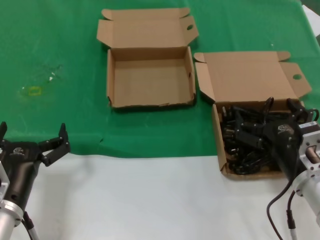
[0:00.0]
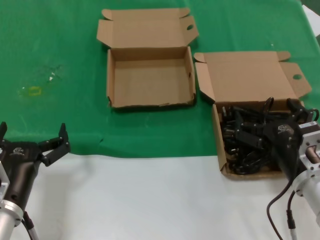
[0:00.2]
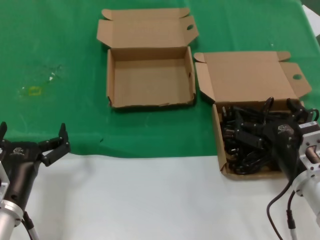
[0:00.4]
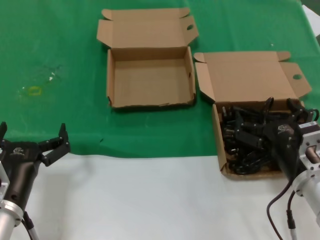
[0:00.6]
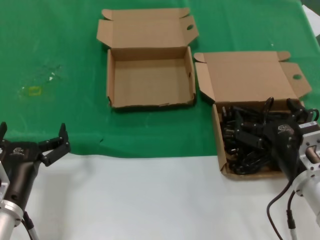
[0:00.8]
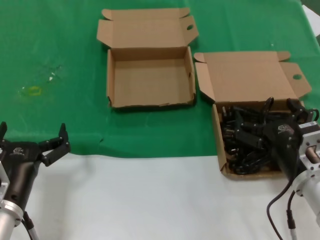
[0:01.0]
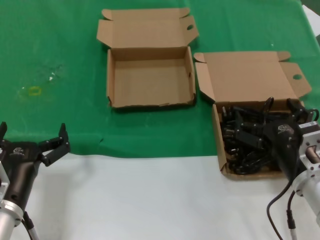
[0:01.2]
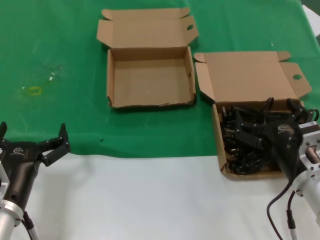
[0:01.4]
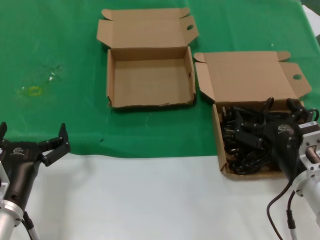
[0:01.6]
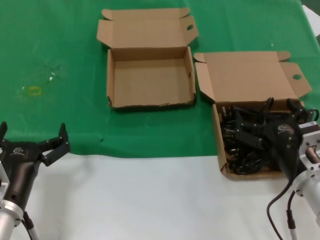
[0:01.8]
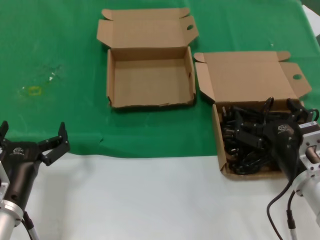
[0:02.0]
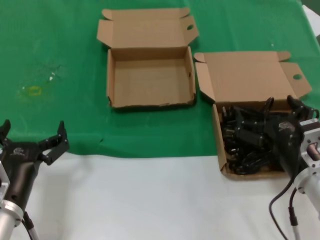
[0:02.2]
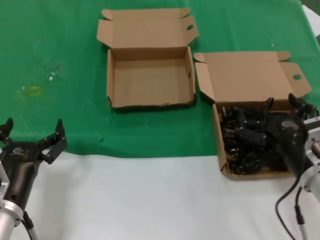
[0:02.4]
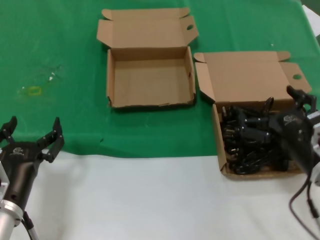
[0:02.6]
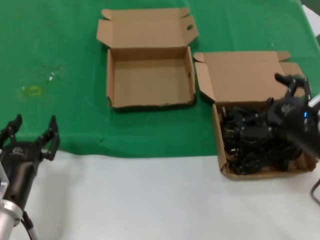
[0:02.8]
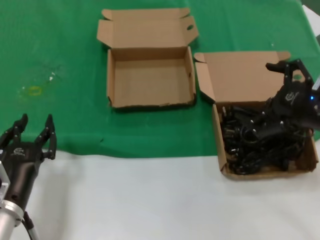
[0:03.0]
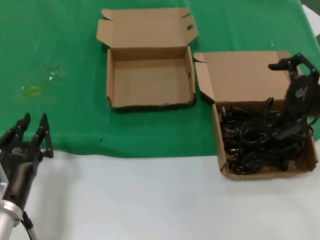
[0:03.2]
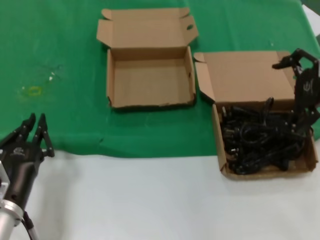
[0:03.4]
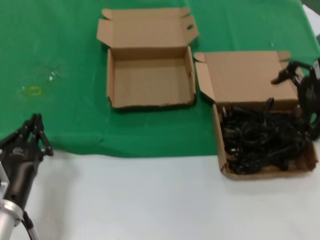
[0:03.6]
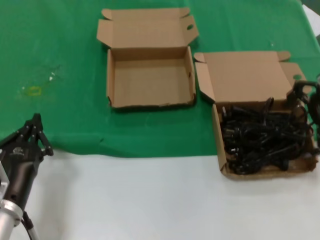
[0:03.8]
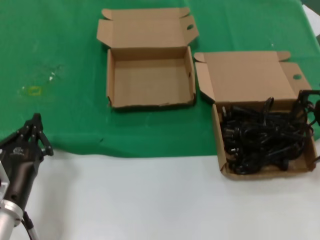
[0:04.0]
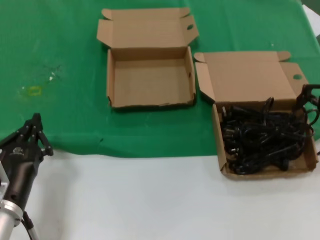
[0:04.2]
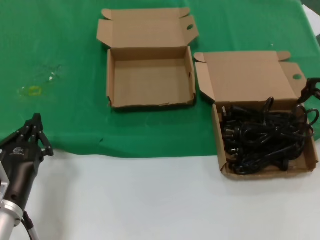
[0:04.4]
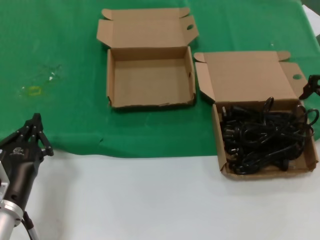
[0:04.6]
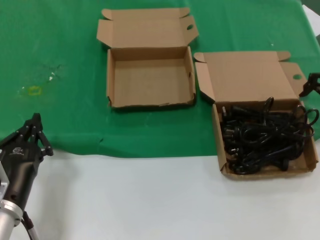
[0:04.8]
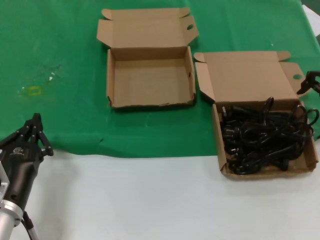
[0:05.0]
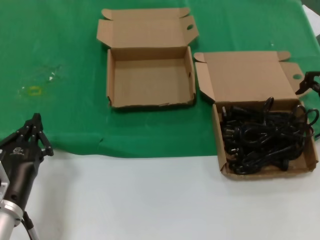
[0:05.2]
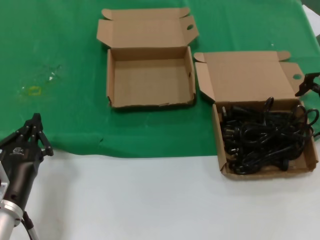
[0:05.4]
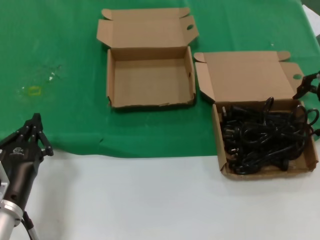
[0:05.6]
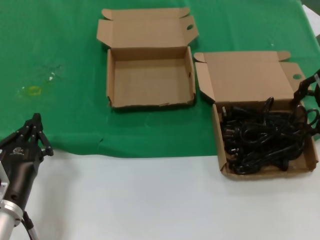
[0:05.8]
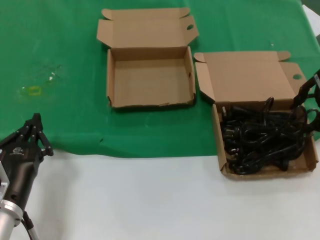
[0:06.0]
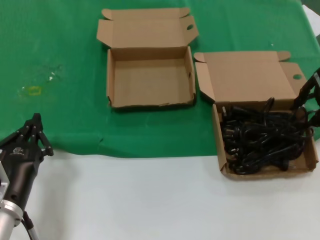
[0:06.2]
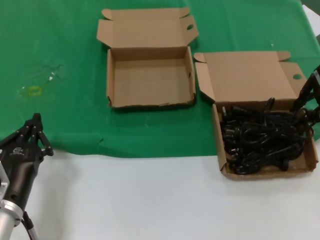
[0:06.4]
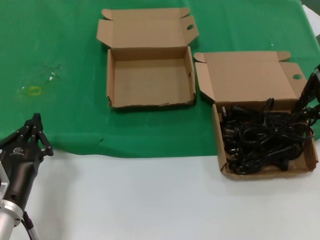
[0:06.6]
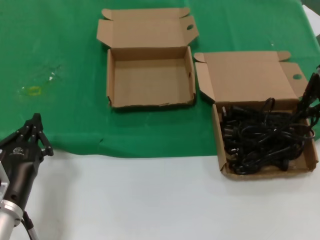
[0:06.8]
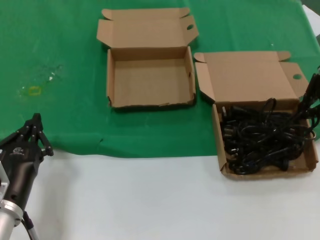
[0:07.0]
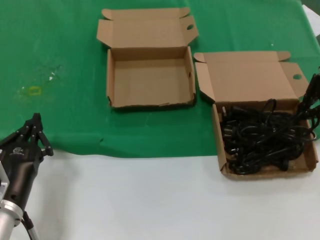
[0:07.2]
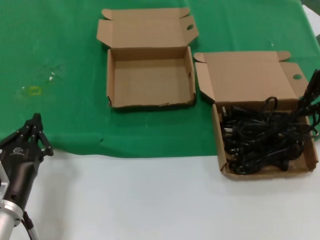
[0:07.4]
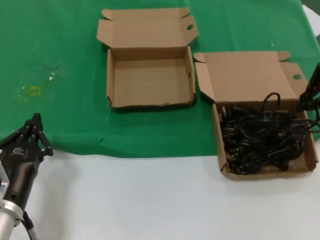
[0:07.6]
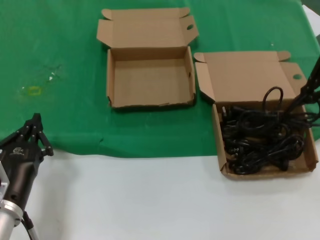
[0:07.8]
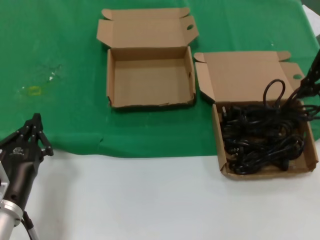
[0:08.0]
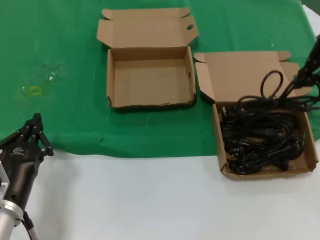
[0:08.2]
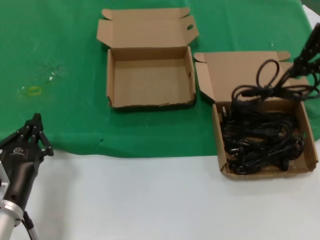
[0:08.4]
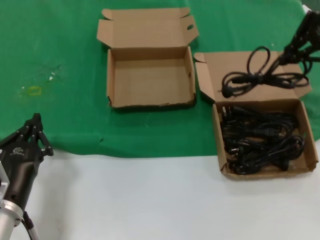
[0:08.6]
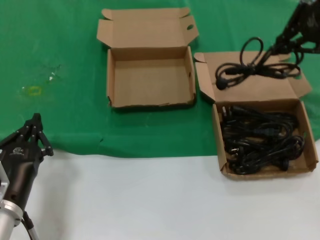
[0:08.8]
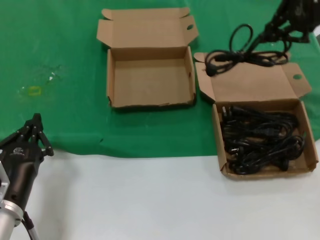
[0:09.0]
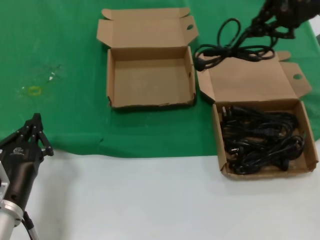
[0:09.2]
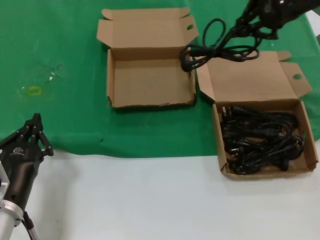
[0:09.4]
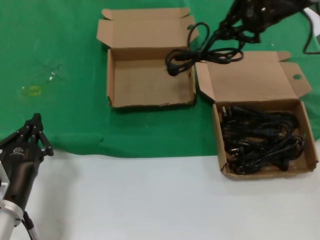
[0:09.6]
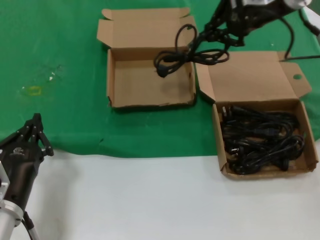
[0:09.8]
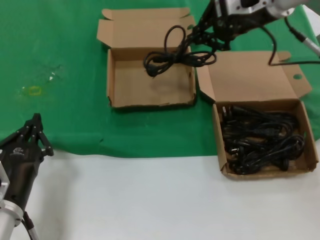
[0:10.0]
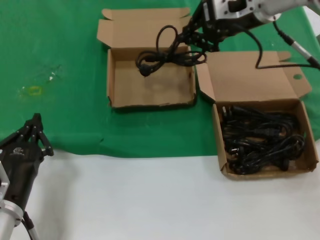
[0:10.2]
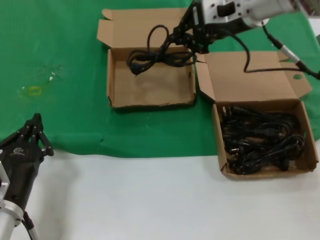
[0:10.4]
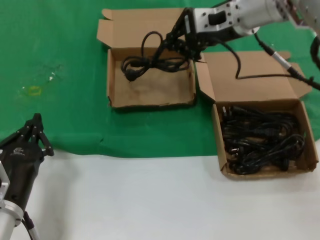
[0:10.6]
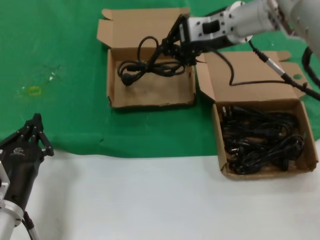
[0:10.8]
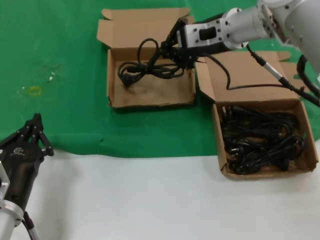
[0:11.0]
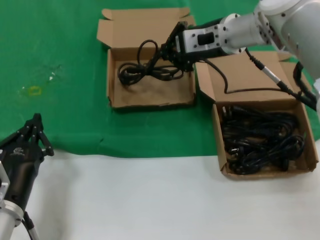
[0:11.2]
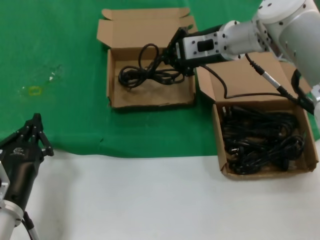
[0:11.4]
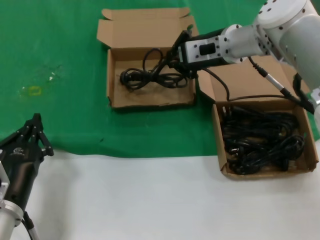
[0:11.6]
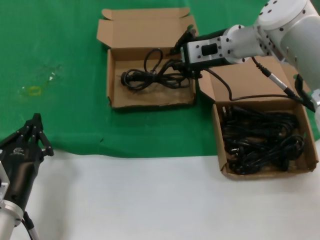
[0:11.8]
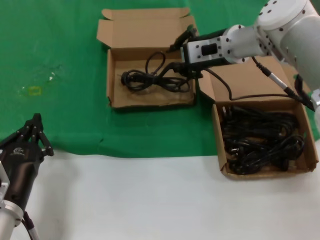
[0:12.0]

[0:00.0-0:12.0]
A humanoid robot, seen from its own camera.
Task of the whole recording: take the parts from the box containing them and put them into an empty box.
Step, 0:00.0 to 0:06.8: Grasp the data cable.
0:00.0 to 0:01.6: Neither hand changes place.
0:01.6 to 0:03.0: The right hand heads upward and to the right, covering some 15 cm.
0:03.0 to 0:04.4: The right hand goes some 20 cm forward, upward and to the right.
0:06.0 to 0:07.6: The hands move only a little.
0:07.6 to 0:09.0: The right hand moves upward and to the left, roughly 10 cm.
0:09.0 to 0:10.4: The right hand heads to the left and downward, covering approximately 15 cm.
0:10.4 to 0:12.0: The right hand goes approximately 10 cm downward.

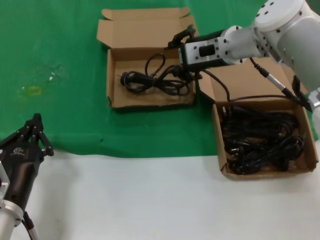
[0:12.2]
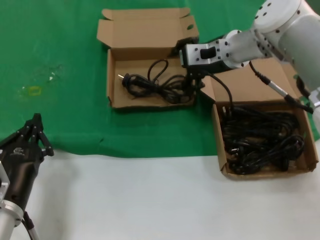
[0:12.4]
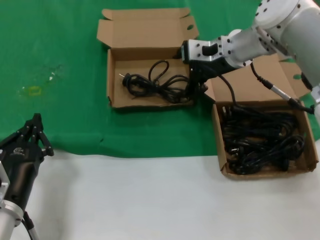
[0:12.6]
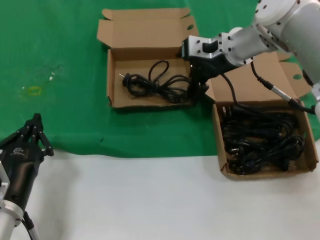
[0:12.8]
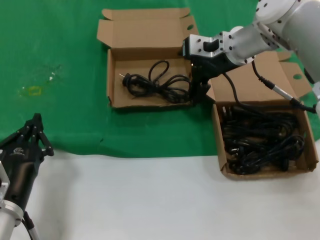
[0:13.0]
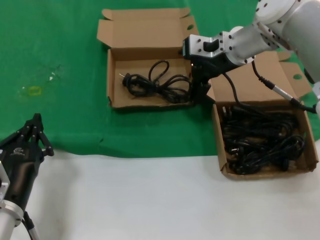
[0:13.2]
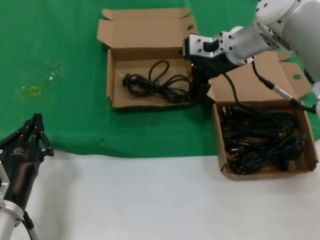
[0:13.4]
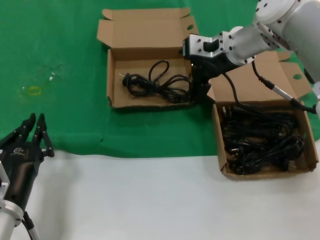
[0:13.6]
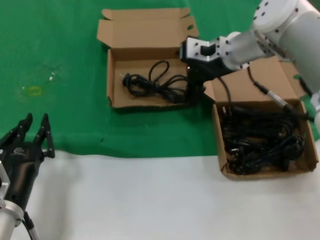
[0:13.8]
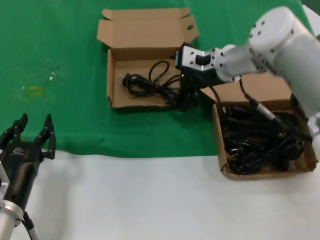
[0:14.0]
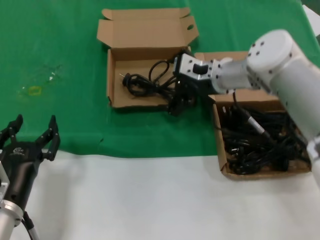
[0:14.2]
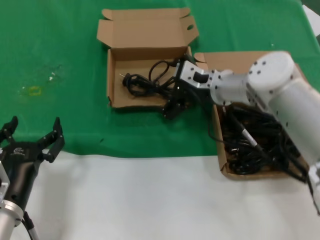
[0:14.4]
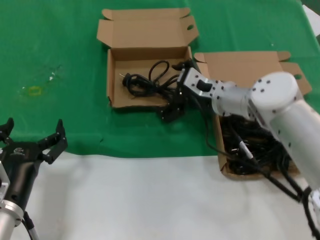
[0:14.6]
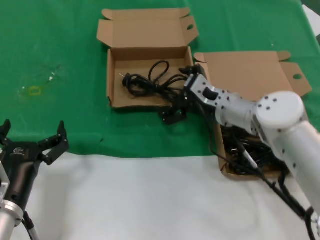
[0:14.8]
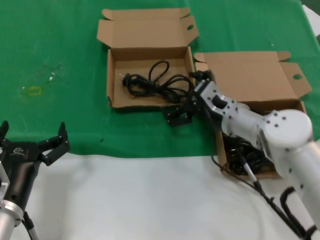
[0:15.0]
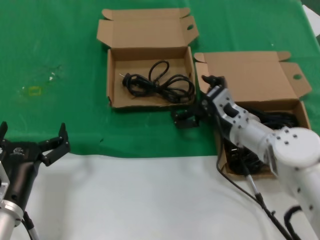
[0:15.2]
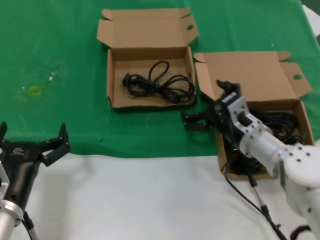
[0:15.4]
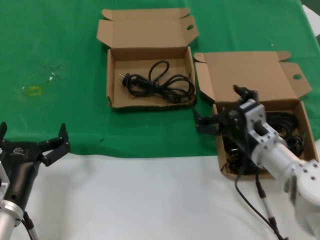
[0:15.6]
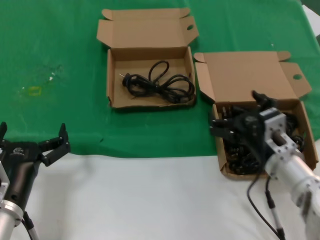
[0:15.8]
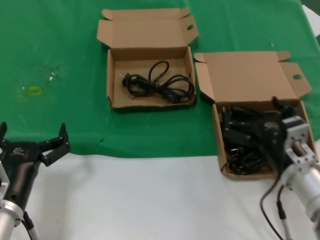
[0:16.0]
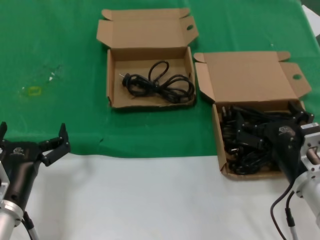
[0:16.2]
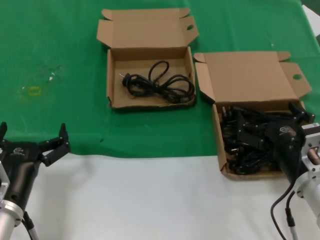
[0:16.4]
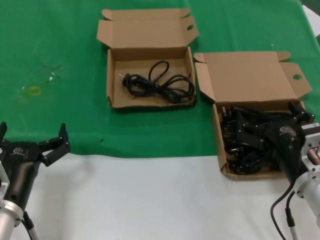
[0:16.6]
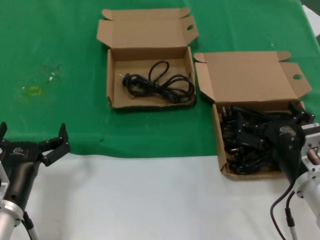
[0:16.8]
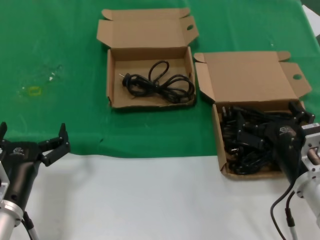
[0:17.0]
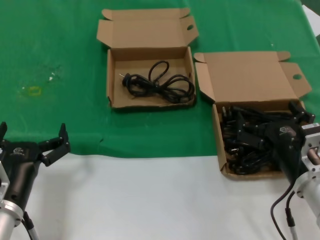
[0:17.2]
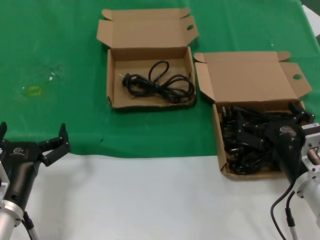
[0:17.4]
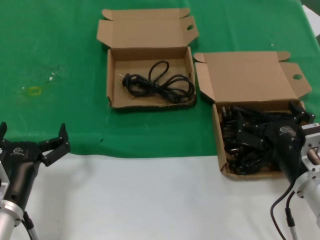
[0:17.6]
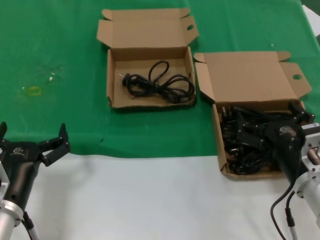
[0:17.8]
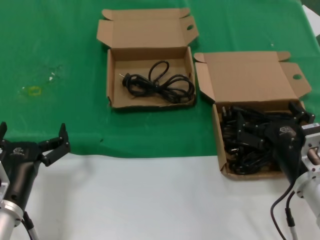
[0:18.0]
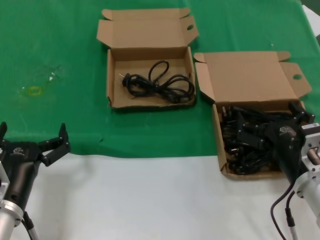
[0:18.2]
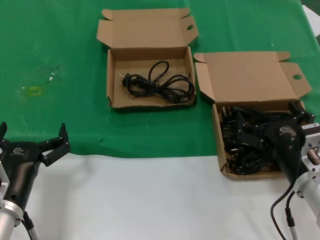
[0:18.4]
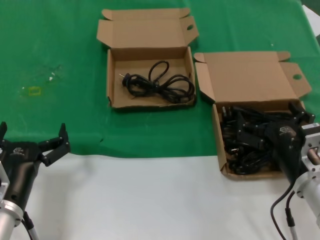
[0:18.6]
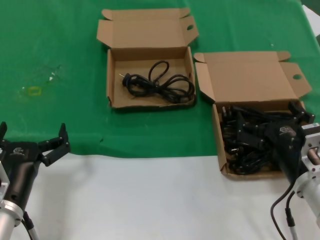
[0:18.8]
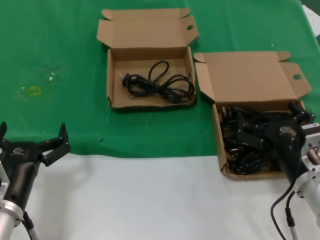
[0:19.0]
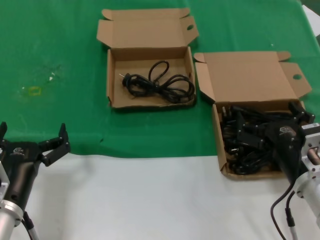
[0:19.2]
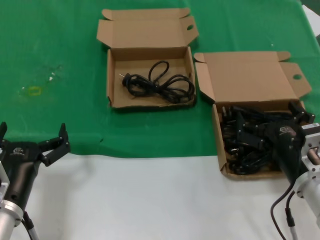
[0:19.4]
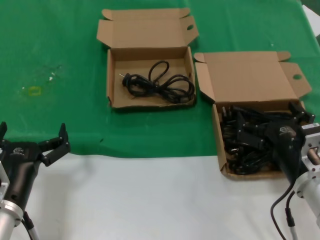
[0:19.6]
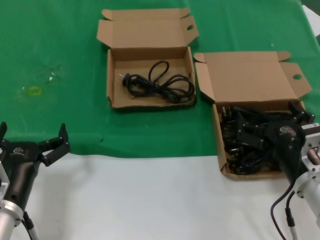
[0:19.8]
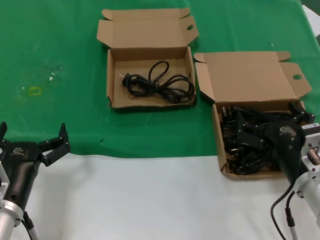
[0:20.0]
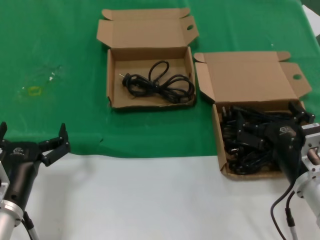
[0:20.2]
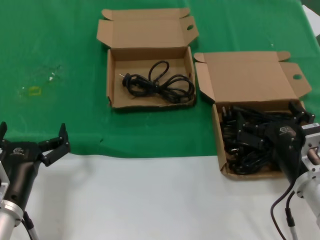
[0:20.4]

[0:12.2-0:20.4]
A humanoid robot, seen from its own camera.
Task of the whole recording: take the parts from the box containing them and put them into an empty box.
0:12.2 to 0:13.8: The hands move only a little.
0:13.8 to 0:15.4: The right hand moves downward and backward, approximately 25 cm.
0:15.4 to 0:17.2: The right hand shifts roughly 15 cm backward and to the right.
0:17.2 to 0:20.4: Neither hand changes place.

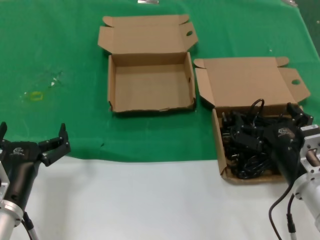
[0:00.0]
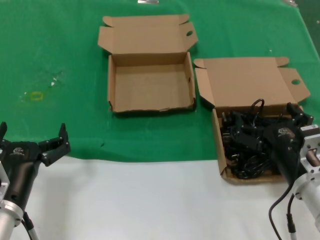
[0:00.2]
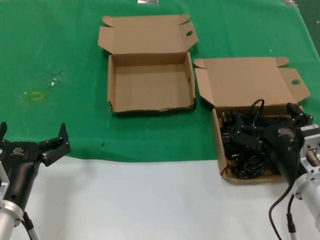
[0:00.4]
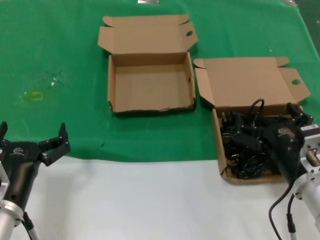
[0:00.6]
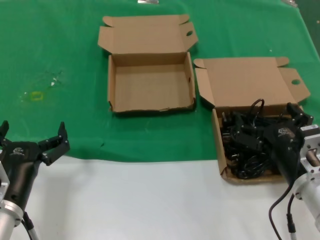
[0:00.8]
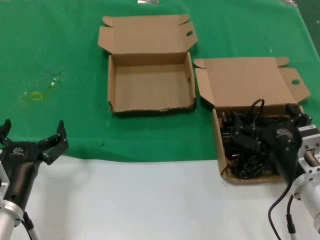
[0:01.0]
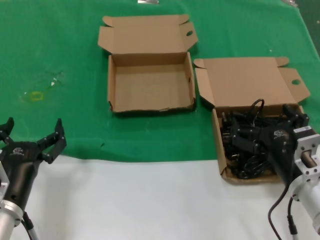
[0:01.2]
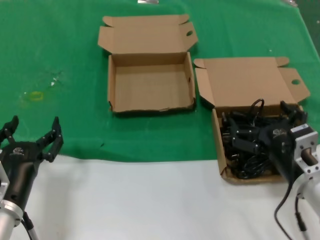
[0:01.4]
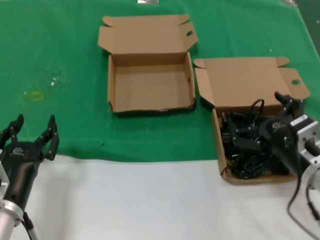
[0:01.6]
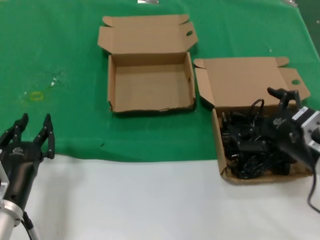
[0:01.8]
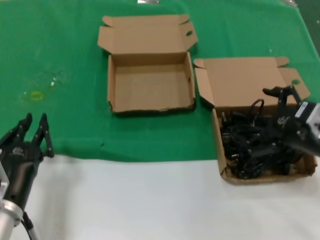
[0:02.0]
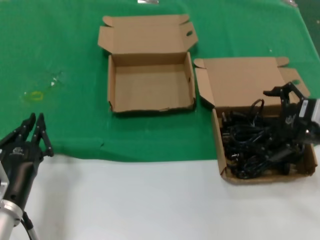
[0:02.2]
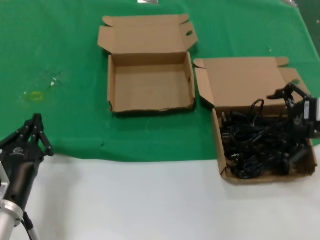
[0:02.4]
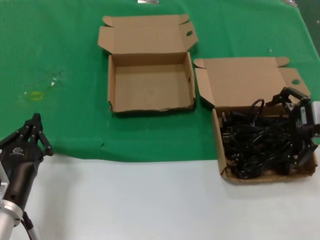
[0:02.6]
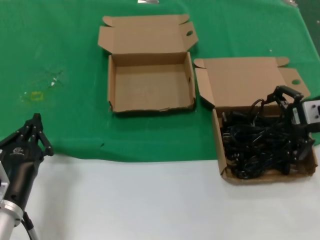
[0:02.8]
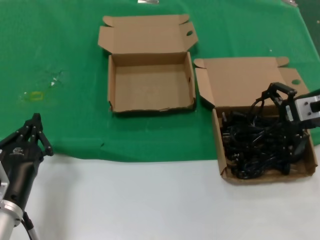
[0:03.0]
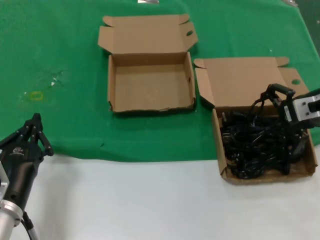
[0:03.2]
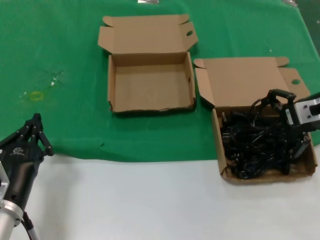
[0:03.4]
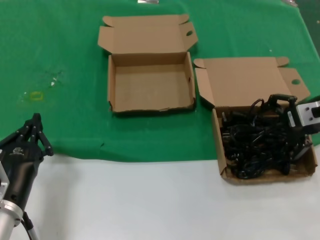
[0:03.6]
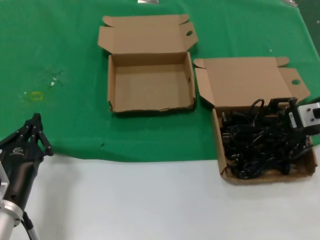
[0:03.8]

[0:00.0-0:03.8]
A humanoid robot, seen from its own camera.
Task of the whole recording: take the parts from the box containing them and put them into an empty box.
0:00.0 to 0:01.2: Both hands stay put.
0:01.2 to 0:02.6: The right hand travels upward, to the right and forward by some 25 cm.
0:02.6 to 0:03.8: The hands make only small movements.
